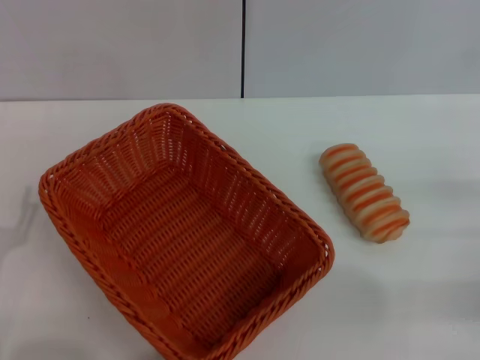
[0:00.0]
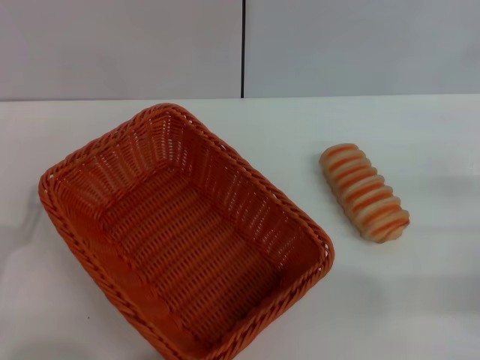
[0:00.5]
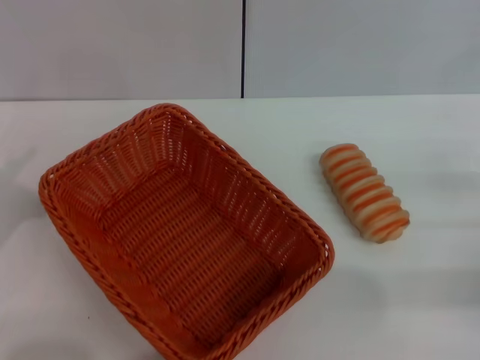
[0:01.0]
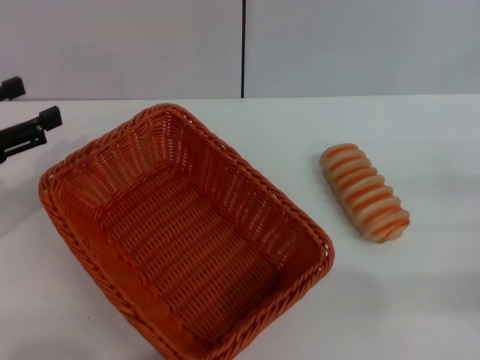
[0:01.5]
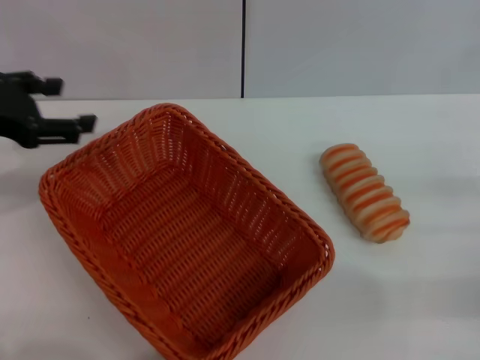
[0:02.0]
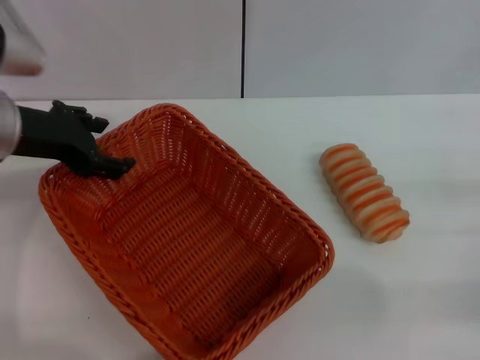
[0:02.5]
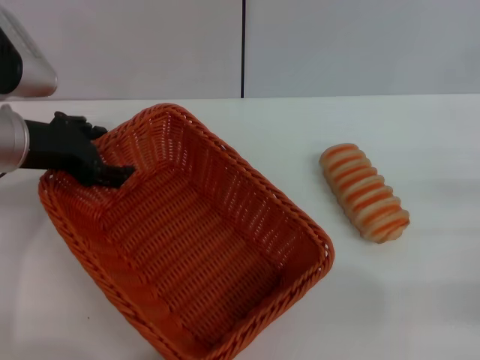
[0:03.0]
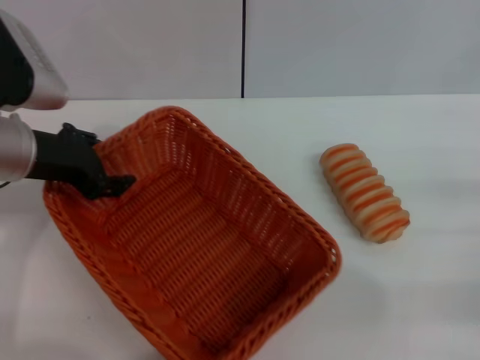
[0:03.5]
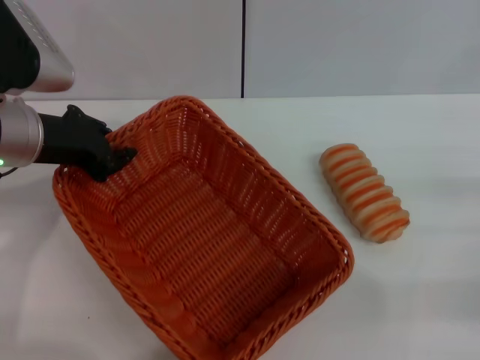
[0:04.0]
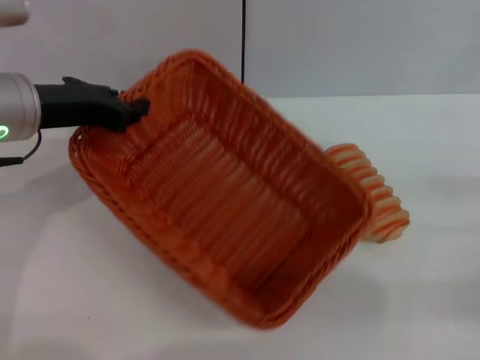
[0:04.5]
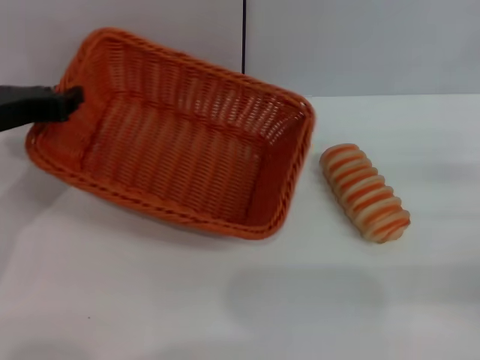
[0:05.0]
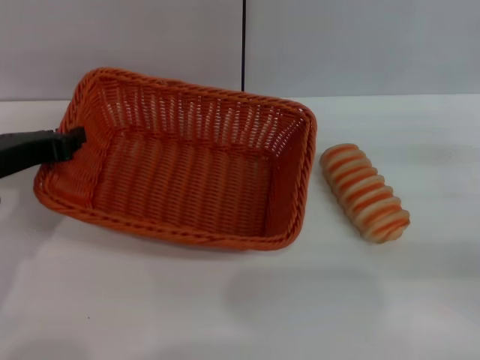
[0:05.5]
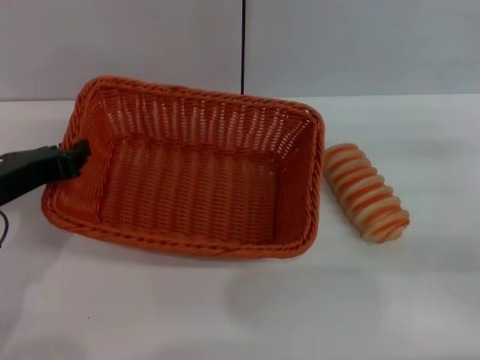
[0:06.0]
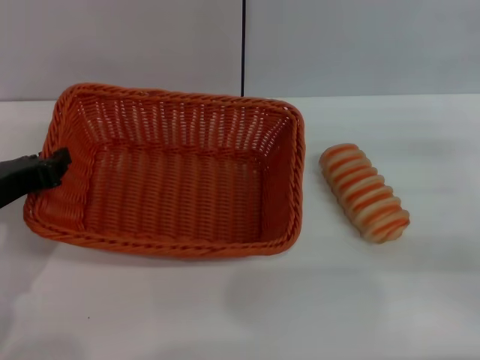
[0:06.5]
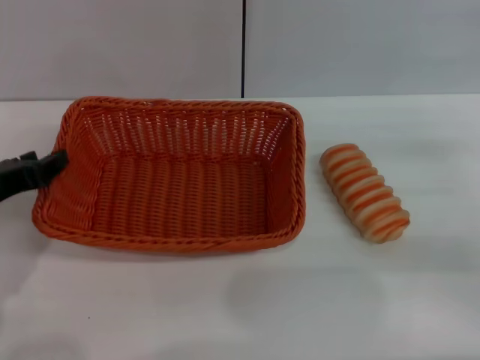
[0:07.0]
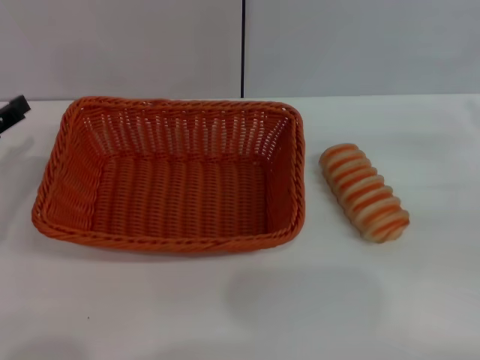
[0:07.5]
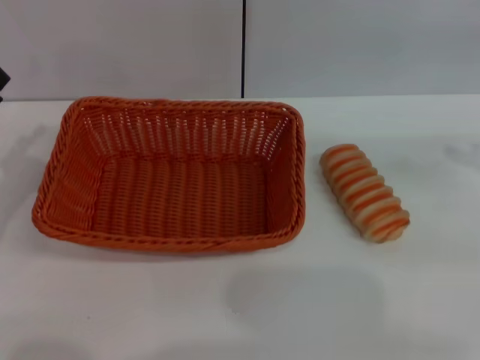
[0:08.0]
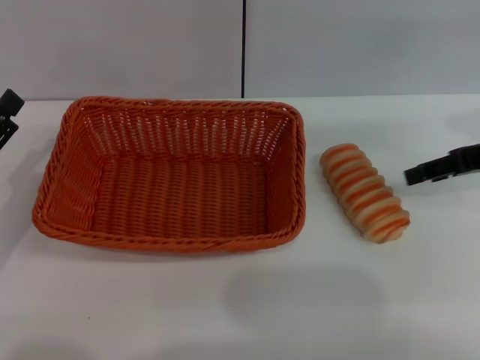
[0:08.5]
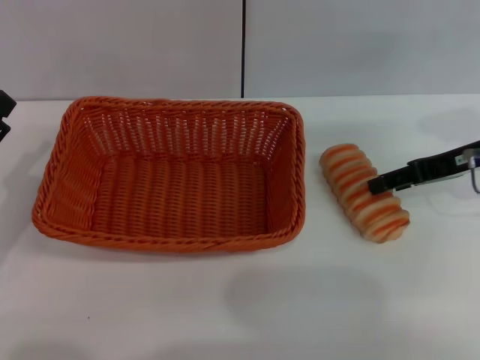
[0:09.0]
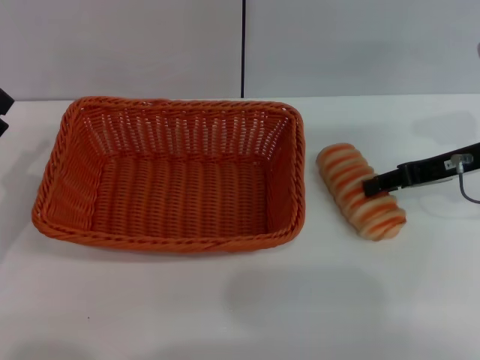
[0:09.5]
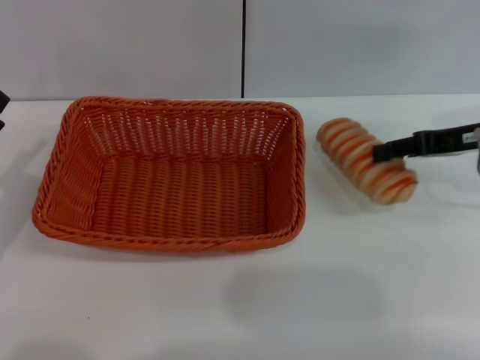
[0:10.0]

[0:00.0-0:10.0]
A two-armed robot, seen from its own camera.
Step, 0:00.0 to 0:04.0: Pick up the light basket with the left gripper.
Step, 0:05.0 to 0:07.0: Place the light basket in the center of view with the left gripper.
0:00.0 to 0:02.0: The left gripper heads forward and upward, covering roughly 25 cm.
0:02.0 to 0:04.0: The left gripper travels to the right by approximately 10 cm, and closes.
0:04.0 to 0:06.0: The left gripper moves backward, some 10 cm, and closes its fingers. Meanwhile the right gripper travels forward by about 5 cm.
0:06.0 to 0:08.0: The left gripper shifts roughly 10 cm to the left, and opens up, while the right gripper moves upward, approximately 10 cm.
0:08.0 to 0:10.0: The right gripper moves to the left, roughly 10 cm.

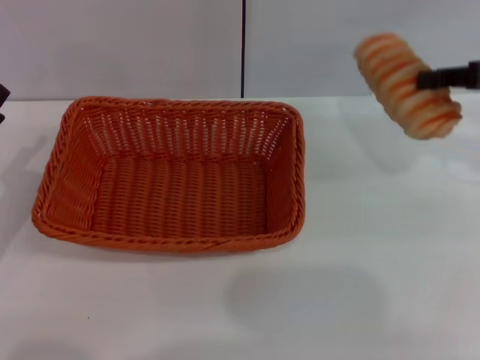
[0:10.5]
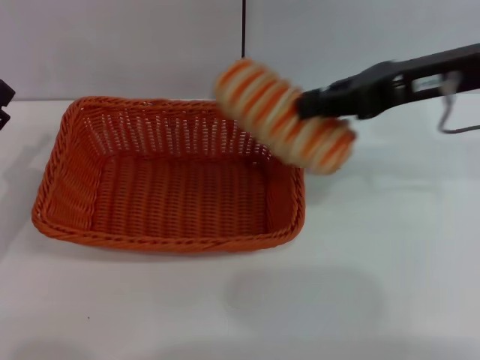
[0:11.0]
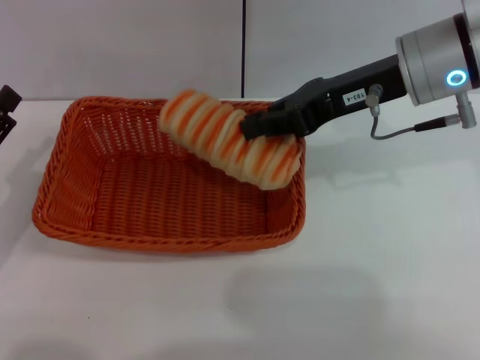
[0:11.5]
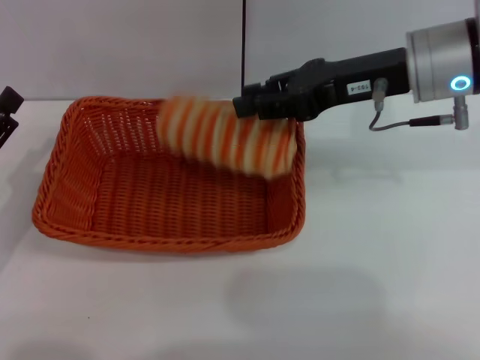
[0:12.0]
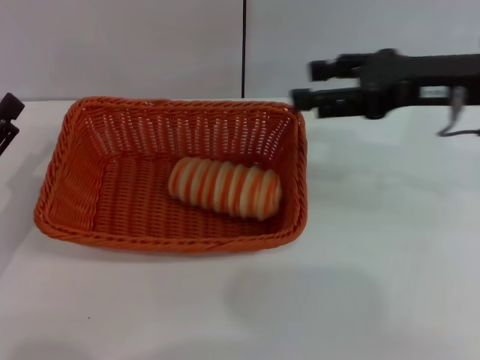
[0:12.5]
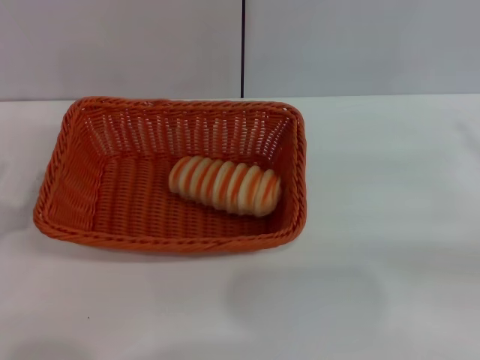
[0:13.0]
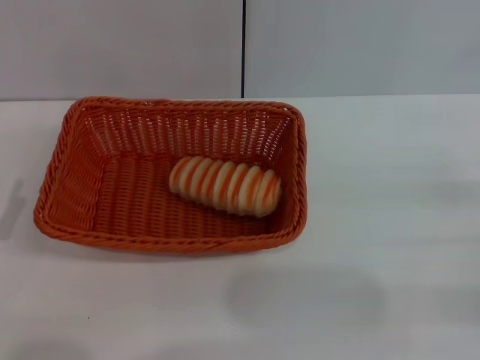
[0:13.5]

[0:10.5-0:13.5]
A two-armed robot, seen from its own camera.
Step, 0:10.5 to 0:12.0: Place the long bread into the light basket with the right gripper.
0:10.5 to 0:12.0: The right gripper goes some 15 cm to the left.
0:12.0 to 0:13.5: The left gripper heads backward, covering some 5 cm. The right gripper moves to the right, backward and downward, roughly 30 cm, and opens up.

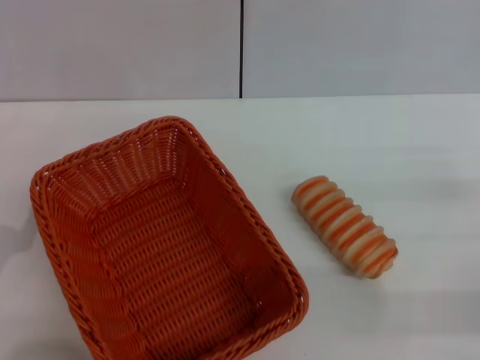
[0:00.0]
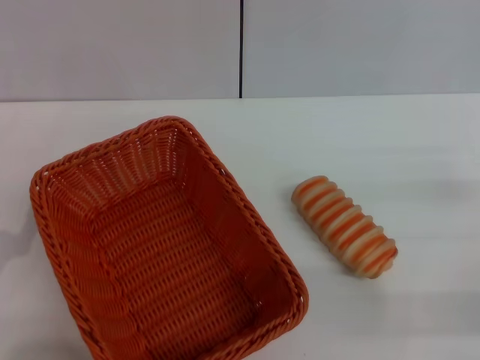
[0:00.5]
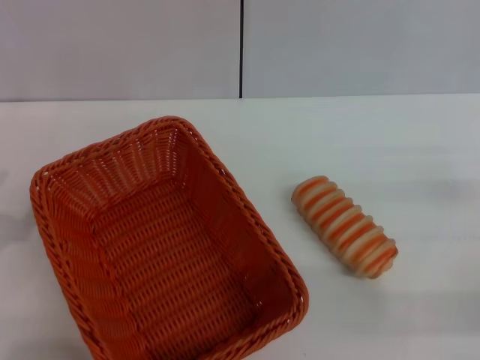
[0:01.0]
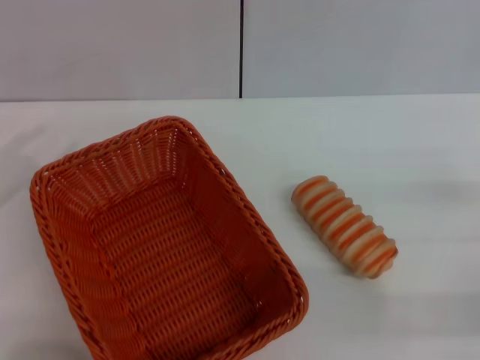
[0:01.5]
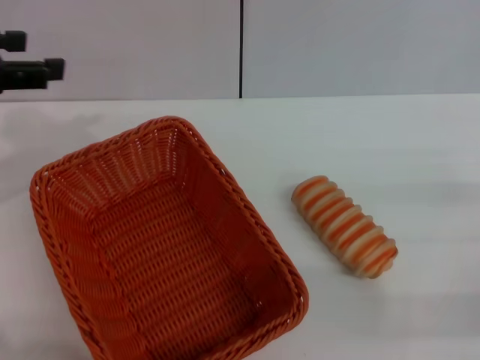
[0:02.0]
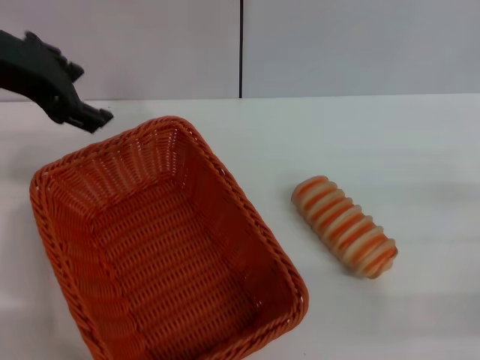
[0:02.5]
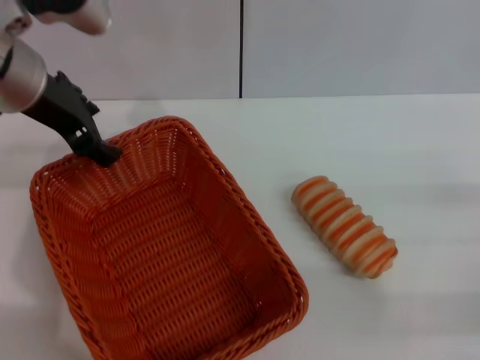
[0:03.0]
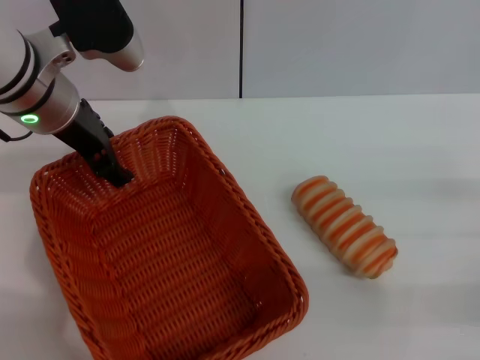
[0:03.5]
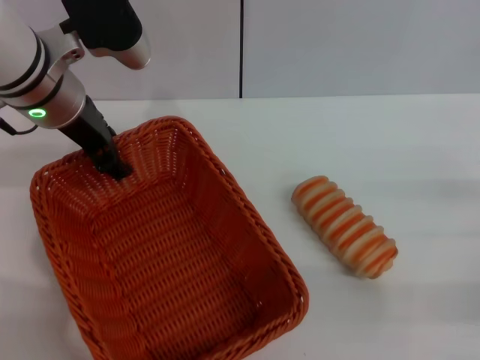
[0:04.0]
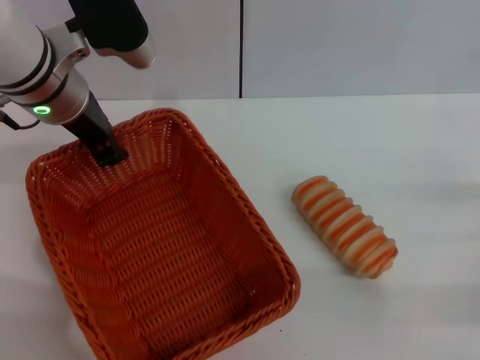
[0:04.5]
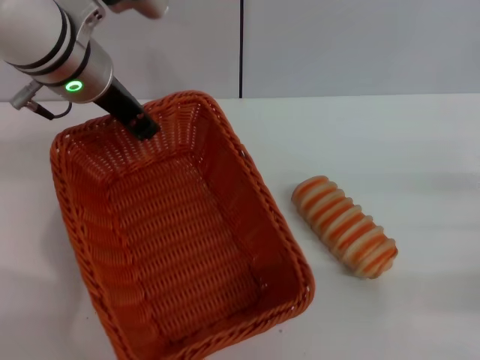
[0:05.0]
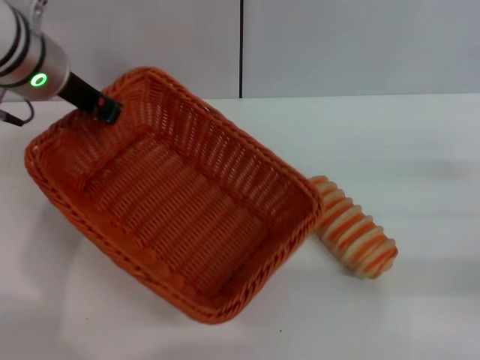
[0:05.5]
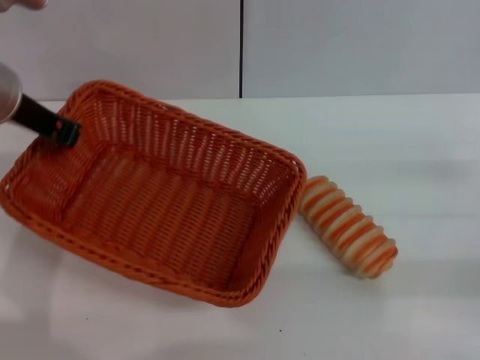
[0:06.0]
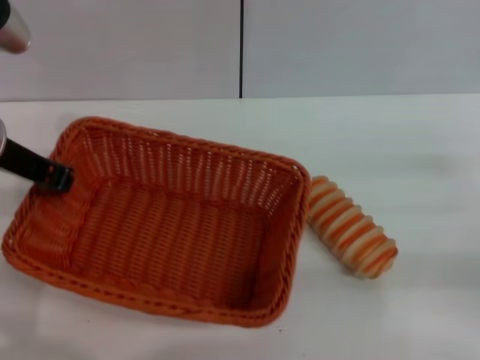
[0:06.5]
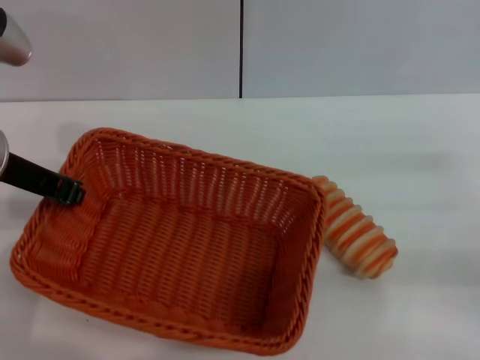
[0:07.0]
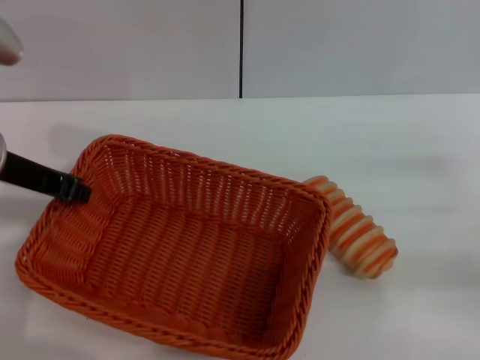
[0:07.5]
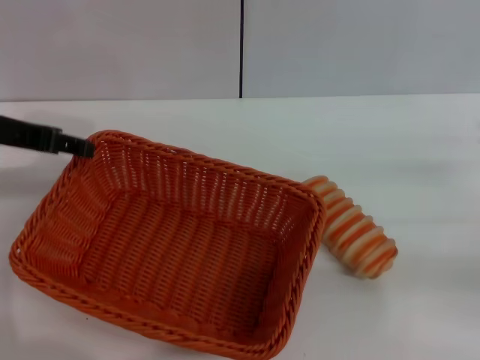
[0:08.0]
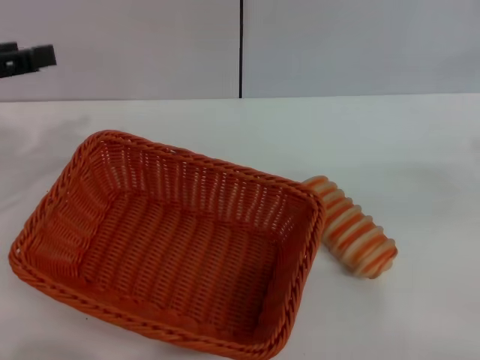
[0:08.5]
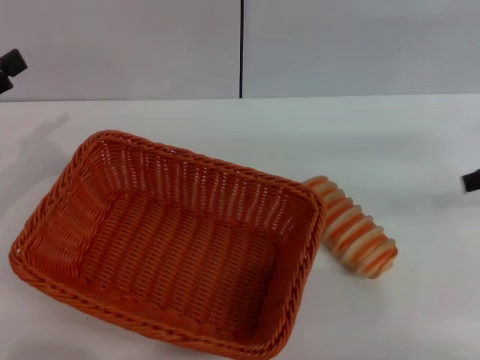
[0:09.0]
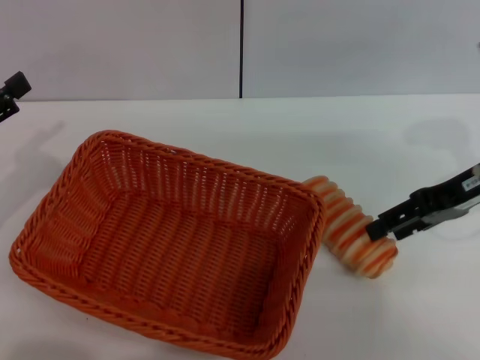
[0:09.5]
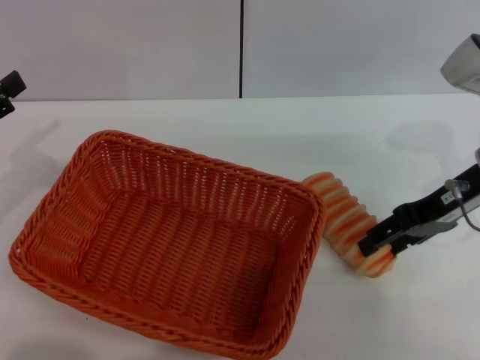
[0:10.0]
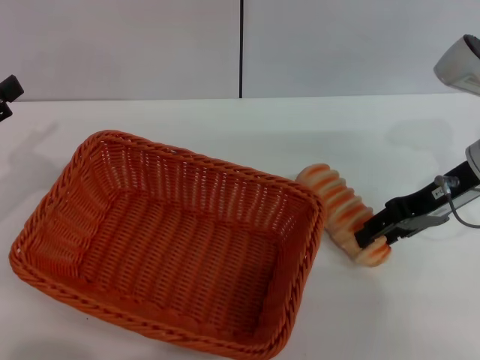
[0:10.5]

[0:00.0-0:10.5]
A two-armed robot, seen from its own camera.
Step, 0:00.0 to 0:03.5: Grasp the basket with the left gripper.
Step, 0:04.5 to 0:08.0: Place the basket in the center of the table with the left gripper.
0:00.0 to 0:02.0: The left gripper is displaced upward and forward by some 25 cm.
0:02.0 to 0:04.0: The left gripper goes approximately 15 cm to the right, forward and downward.
0:04.0 to 0:06.5: The left gripper travels to the left and backward by some 5 cm, and closes.
0:06.5 to 0:08.5: The left gripper goes roughly 10 cm to the left, and opens up. The right gripper goes about 10 cm upward and to the right.
0:08.5 to 0:10.5: The right gripper shifts roughly 20 cm to the left and forward; the left gripper moves downward, some 10 cm.

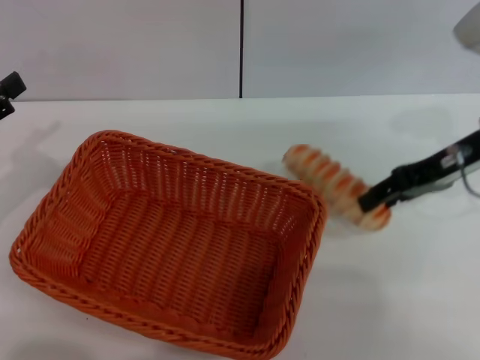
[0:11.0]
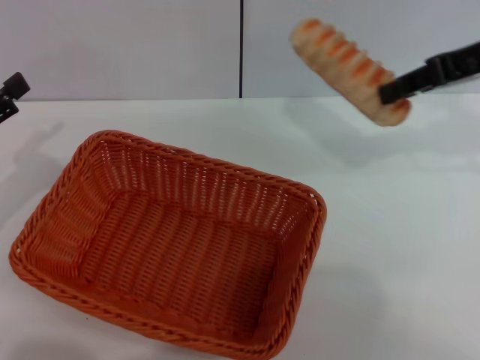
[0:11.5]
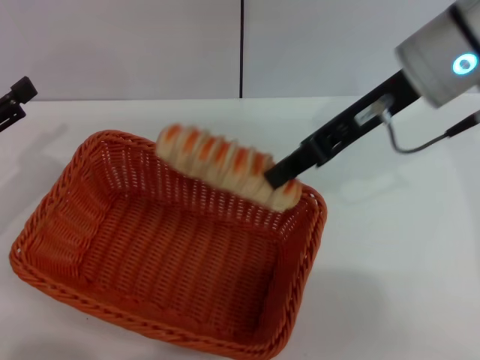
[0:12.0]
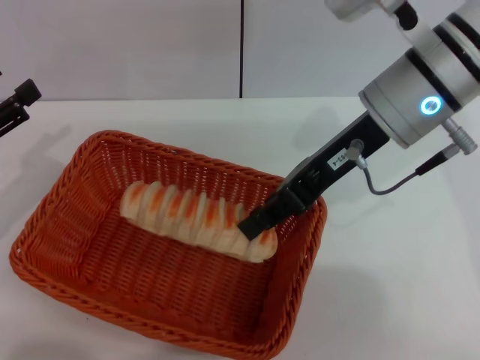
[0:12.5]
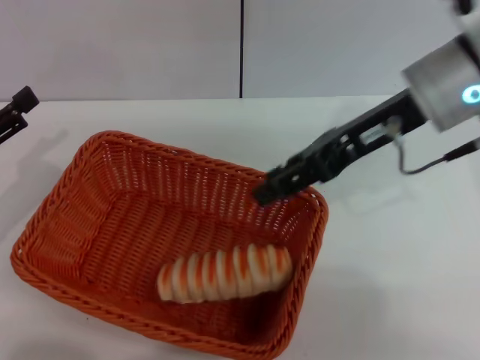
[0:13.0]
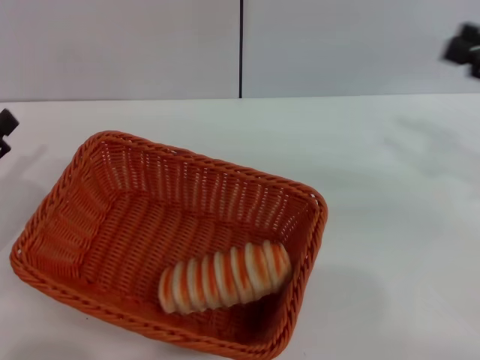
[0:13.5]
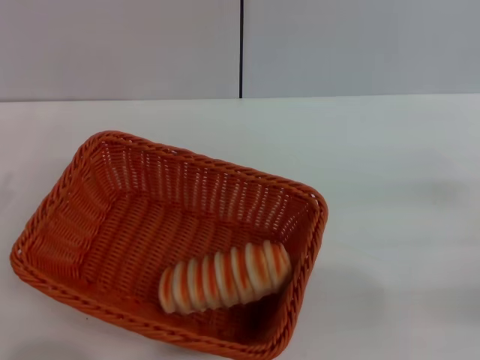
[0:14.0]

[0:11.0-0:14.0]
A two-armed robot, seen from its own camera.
Step, 0:11.0 to 0:13.0: Place the long bread in the basket with right gripper.
0:11.0 to 0:12.5: The right gripper is displaced to the left by roughly 10 cm, and closes.
0:12.5 to 0:14.0: The left gripper is displaced backward and downward by roughly 10 cm. The right gripper shifts some 30 cm to the right, downward and backward, and opens its fingers.
